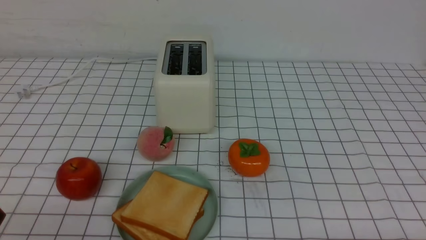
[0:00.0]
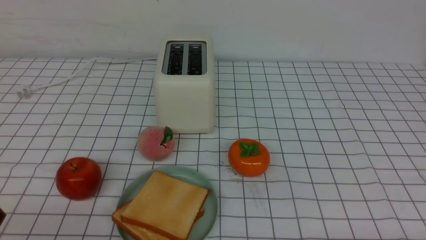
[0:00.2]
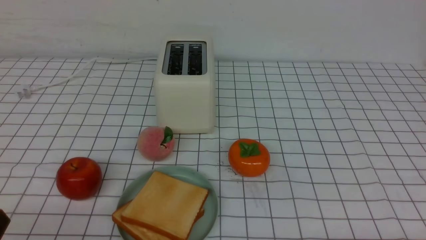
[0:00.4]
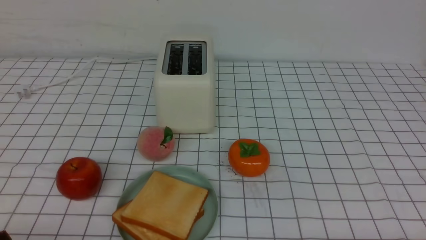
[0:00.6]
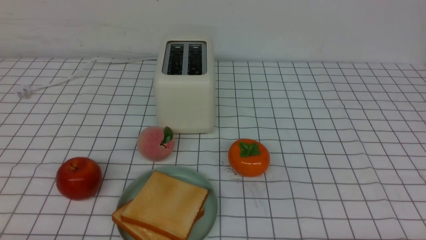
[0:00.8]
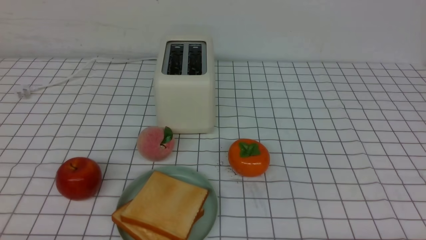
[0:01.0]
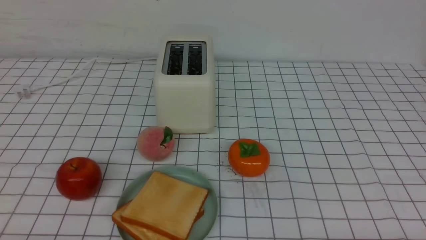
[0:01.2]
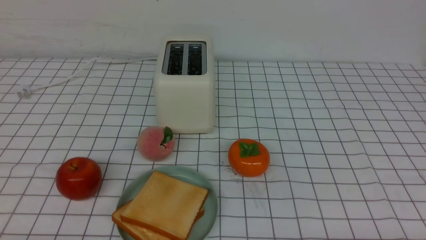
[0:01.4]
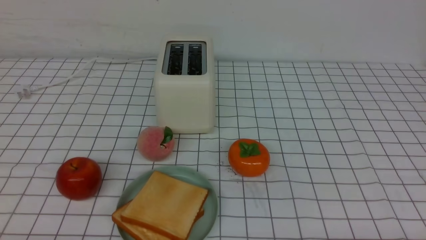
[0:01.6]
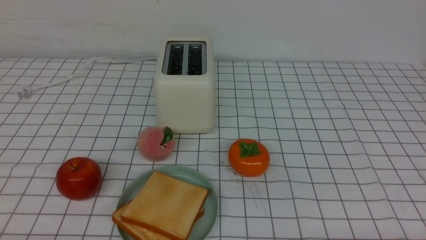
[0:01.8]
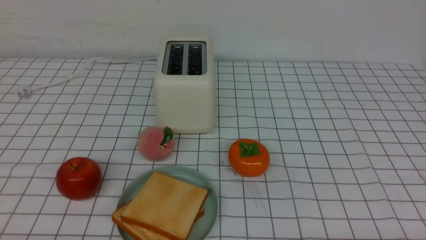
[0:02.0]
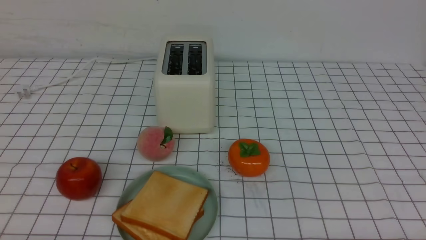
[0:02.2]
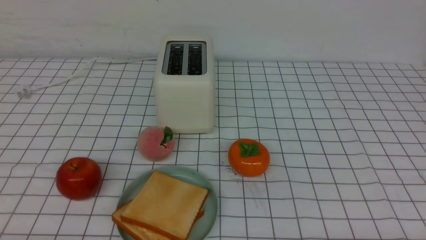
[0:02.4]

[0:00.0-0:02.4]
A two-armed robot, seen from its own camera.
Task of the whole recording: take toasted bread from bread machine on white checkered table place on plate.
0:01.2 to 0:02.4: Neither gripper changes place.

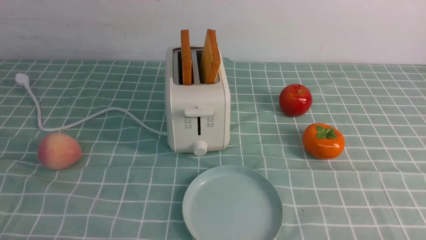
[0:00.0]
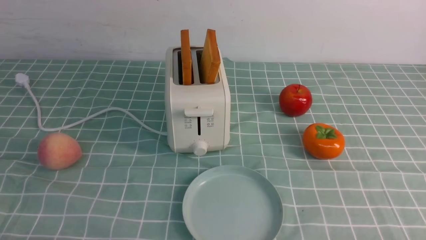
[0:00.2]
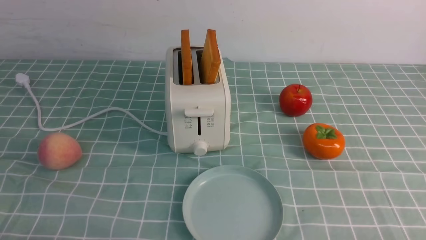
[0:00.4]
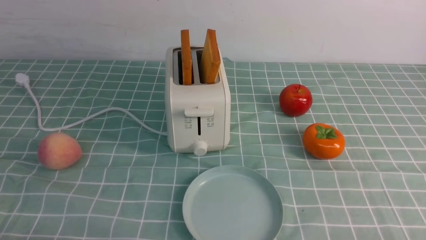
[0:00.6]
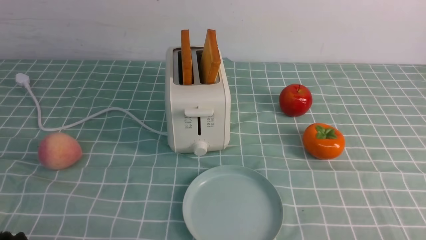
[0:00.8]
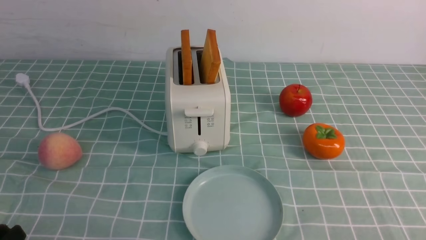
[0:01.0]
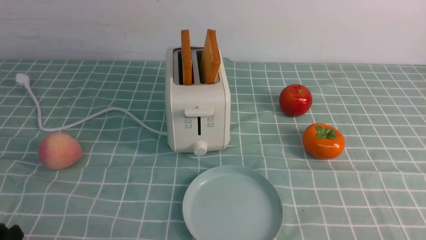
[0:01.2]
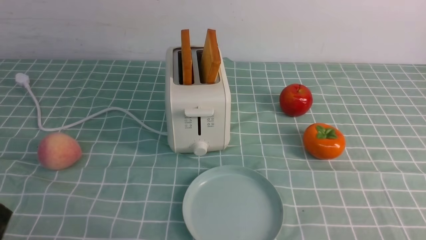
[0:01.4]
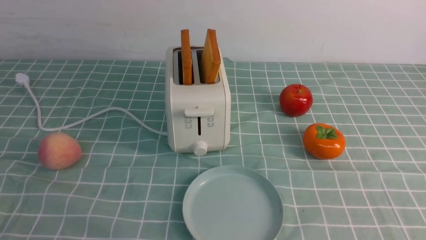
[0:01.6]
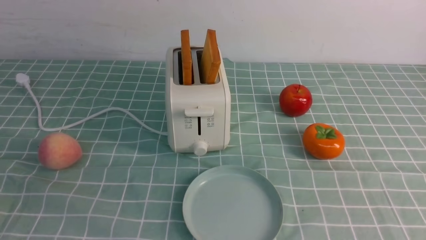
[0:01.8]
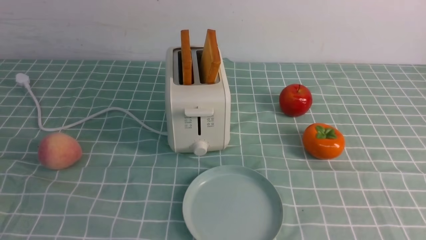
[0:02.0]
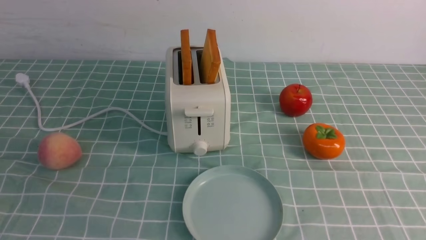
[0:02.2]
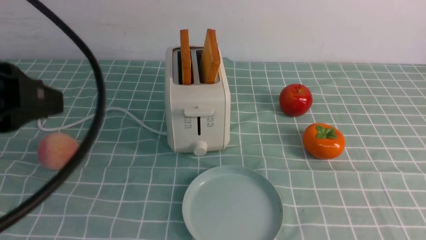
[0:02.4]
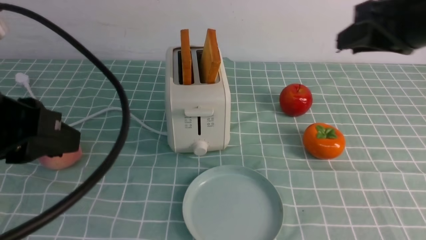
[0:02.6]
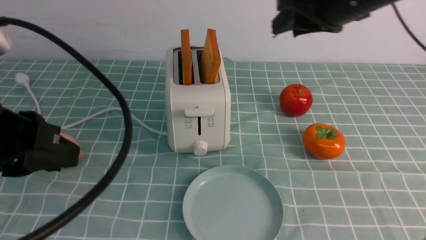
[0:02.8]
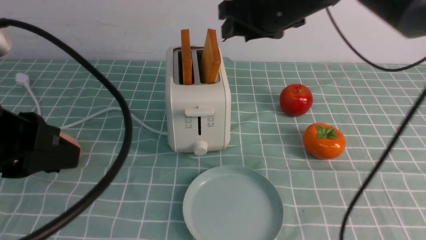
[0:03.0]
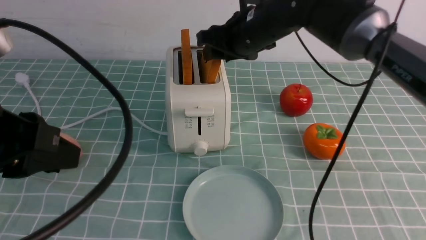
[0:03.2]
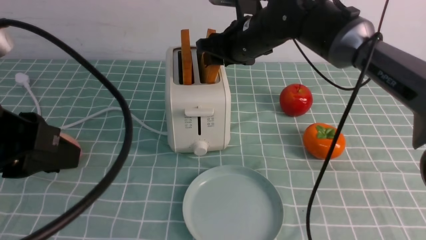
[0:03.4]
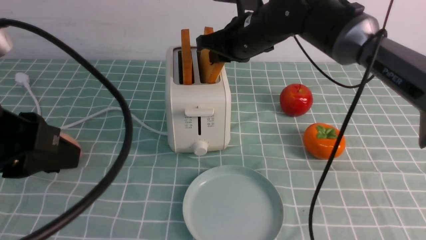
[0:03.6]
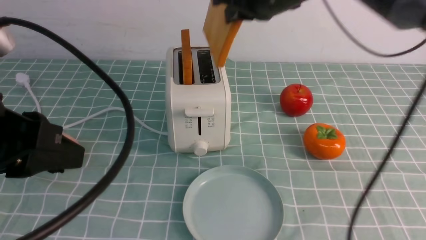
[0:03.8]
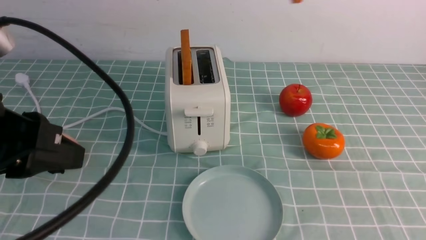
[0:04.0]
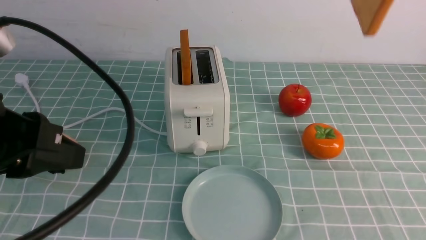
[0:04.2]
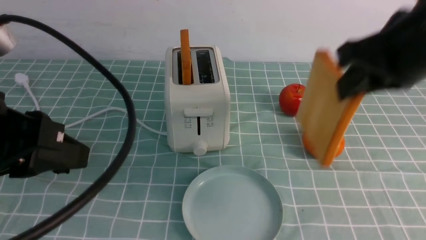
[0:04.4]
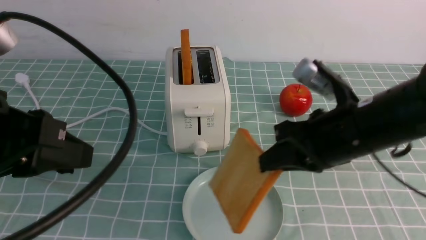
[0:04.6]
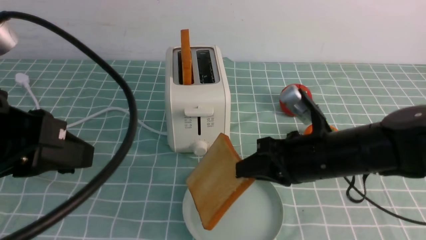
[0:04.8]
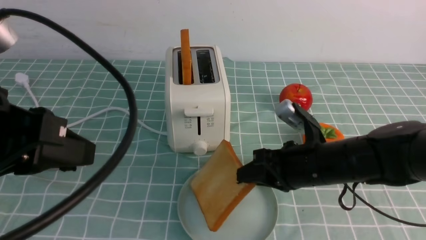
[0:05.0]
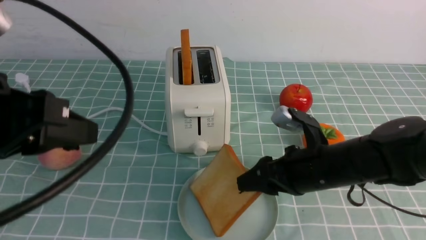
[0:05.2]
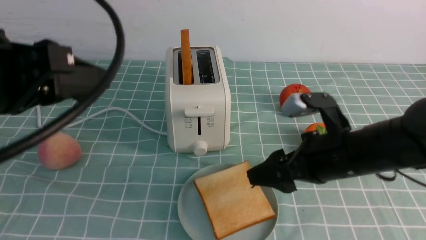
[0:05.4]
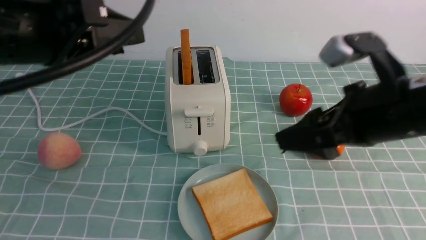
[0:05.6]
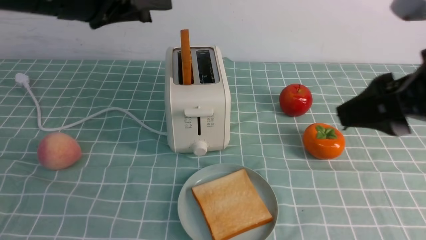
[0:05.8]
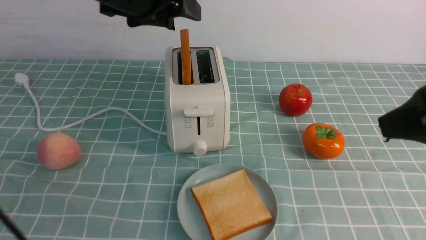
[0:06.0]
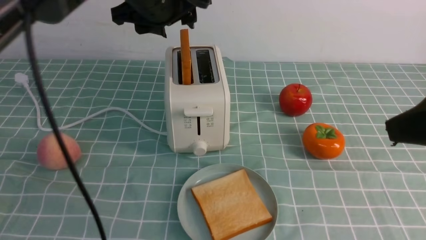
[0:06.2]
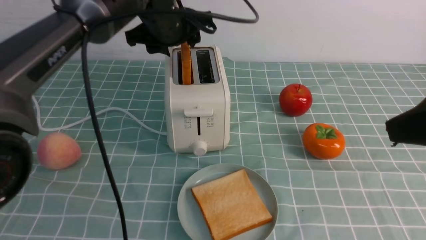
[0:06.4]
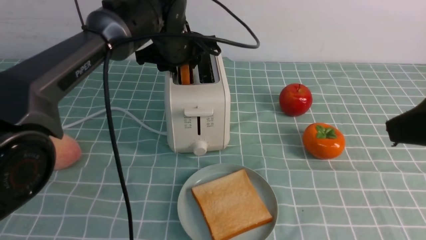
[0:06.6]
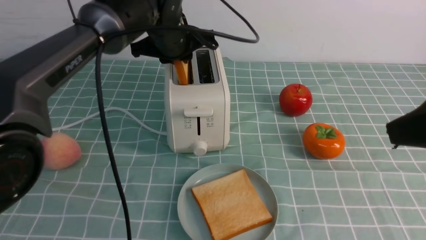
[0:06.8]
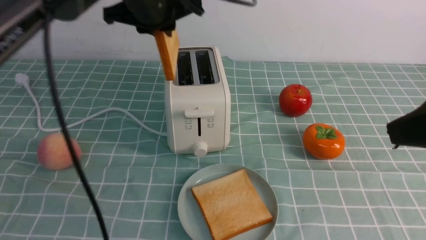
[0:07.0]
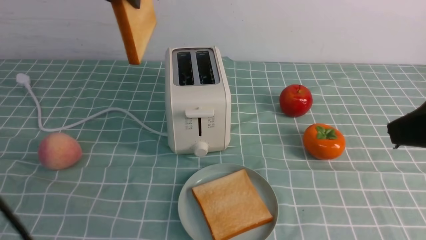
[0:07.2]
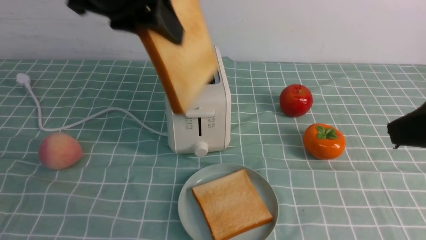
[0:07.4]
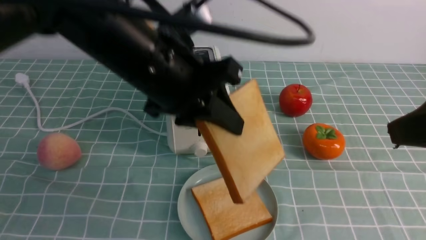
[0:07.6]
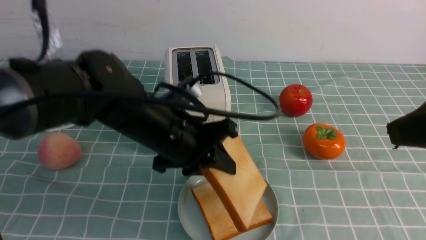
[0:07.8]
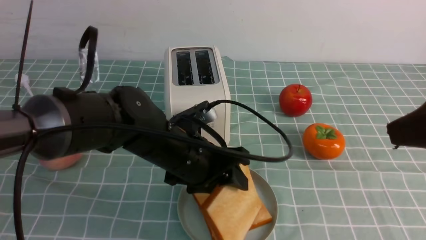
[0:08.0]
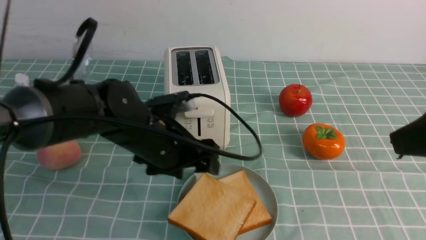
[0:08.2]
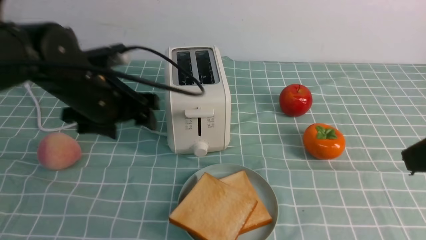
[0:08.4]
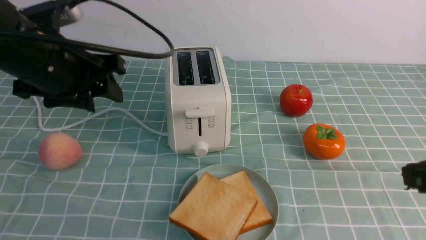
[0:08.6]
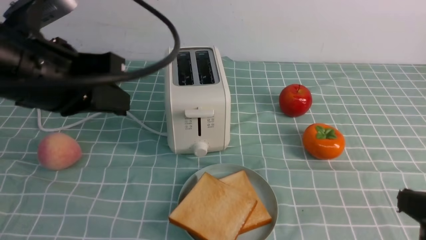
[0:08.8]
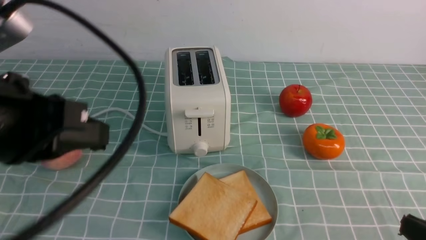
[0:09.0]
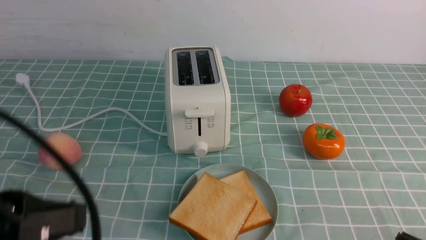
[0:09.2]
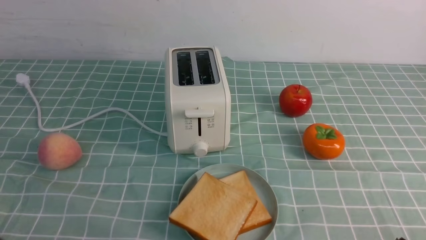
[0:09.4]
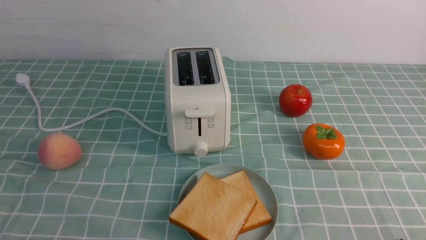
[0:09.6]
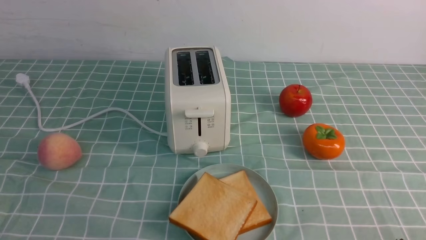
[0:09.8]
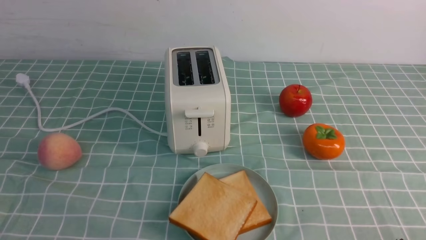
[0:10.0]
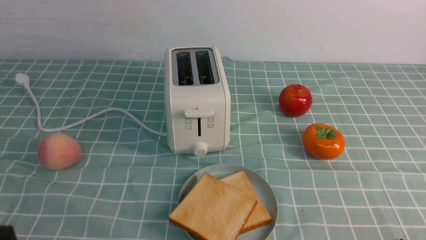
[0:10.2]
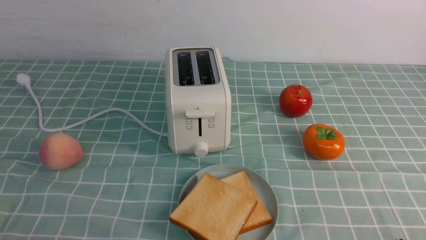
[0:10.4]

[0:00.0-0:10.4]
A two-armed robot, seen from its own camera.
Task of the whole recording: take toasted bread from bread machine on blue coffee table place on plate.
Step, 0:00.0 to 0:03.6: use the right arm to take out a slice of bread.
Step, 0:03.8 to 0:05.4: use the right arm to put a slice of bread into the plate.
Step, 0:05.6 to 0:06.8: use the left arm to take out a slice of bread.
Step, 0:07.2 to 0:08.2: use the left arm to put a slice of bread into the empty plate.
0:01.4 to 0:03.0: The left gripper travels upward and forward by roughly 20 cm. The right gripper is displaced forward, to the left and upward by some 40 cm.
0:03.0 to 0:04.4: The right gripper travels backward and to the right by about 15 cm, and closes up.
0:04.4 to 0:06.0: The left gripper travels forward and to the right by roughly 20 cm. The right gripper heads backward and to the right, covering roughly 10 cm, moves about 20 cm downward and comes back, and opens its fingers.
0:06.0 to 0:07.4: The left gripper goes some 5 cm backward, and closes its fingers.
0:07.4 to 0:09.0: The right gripper goes some 20 cm downward, and closes; the left gripper shifts approximately 15 cm backward and to the left, travels downward and back again, about 20 cm each way, and opens, then closes again.
0:09.0 to 0:10.4: The left gripper goes roughly 20 cm downward, backward and to the left. The right gripper goes about 5 cm downward.
